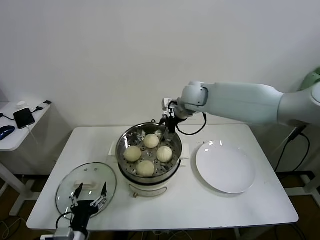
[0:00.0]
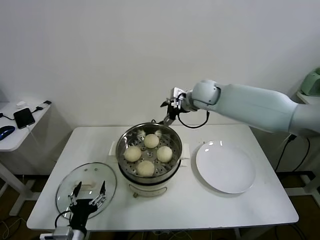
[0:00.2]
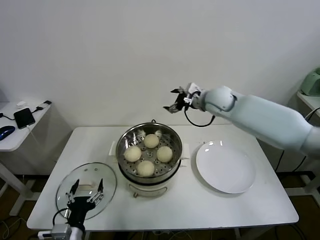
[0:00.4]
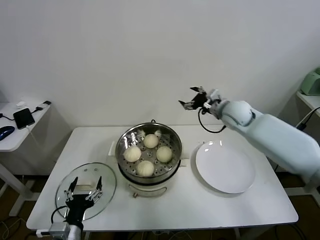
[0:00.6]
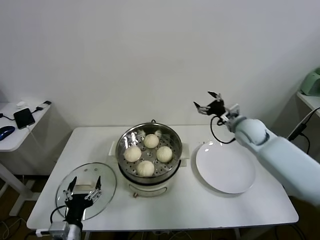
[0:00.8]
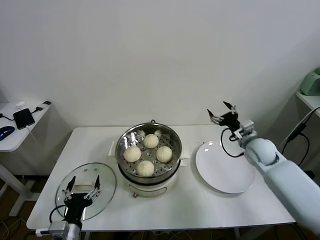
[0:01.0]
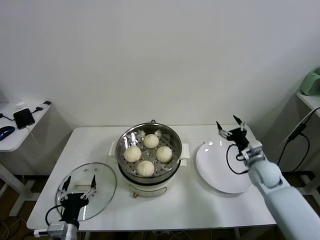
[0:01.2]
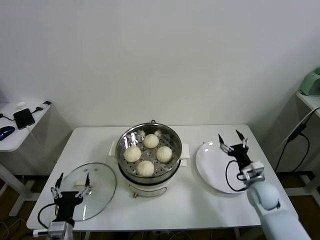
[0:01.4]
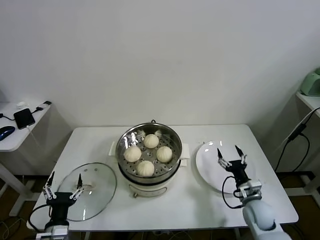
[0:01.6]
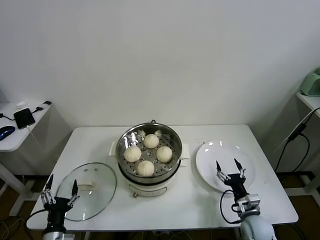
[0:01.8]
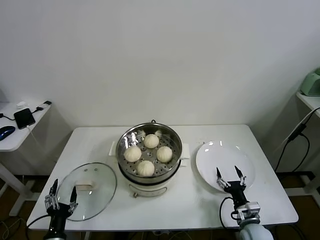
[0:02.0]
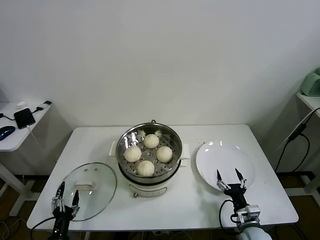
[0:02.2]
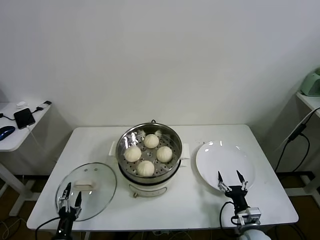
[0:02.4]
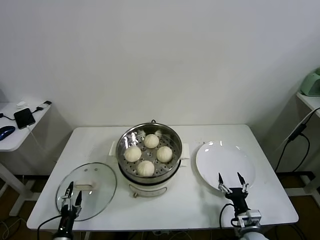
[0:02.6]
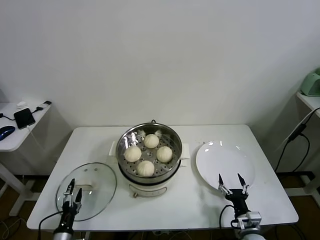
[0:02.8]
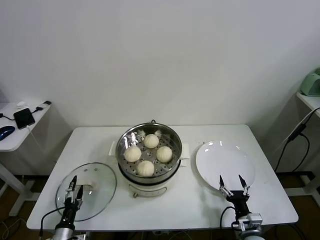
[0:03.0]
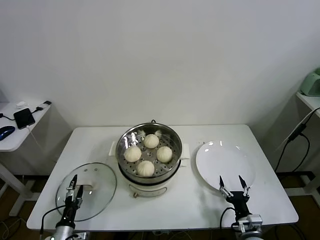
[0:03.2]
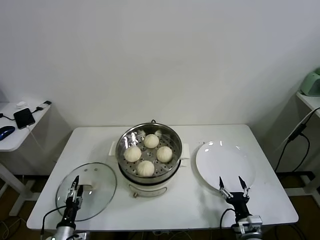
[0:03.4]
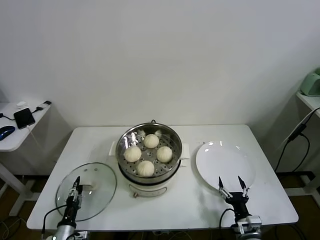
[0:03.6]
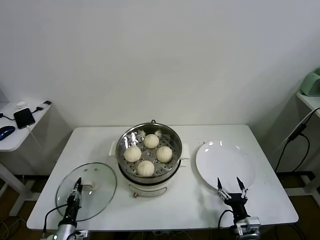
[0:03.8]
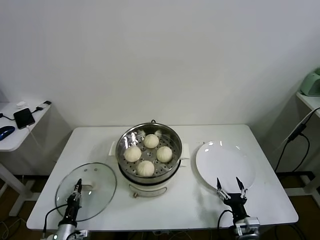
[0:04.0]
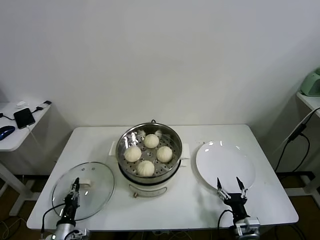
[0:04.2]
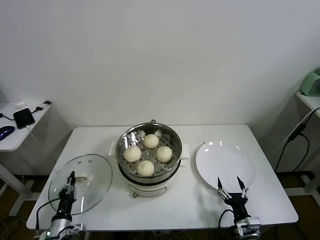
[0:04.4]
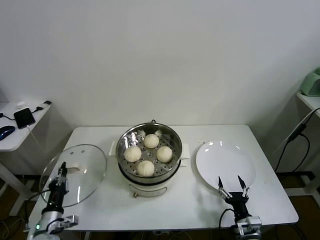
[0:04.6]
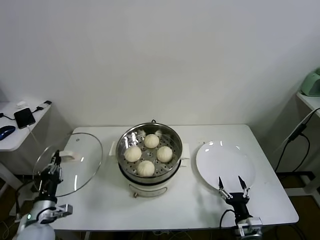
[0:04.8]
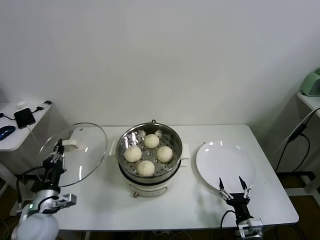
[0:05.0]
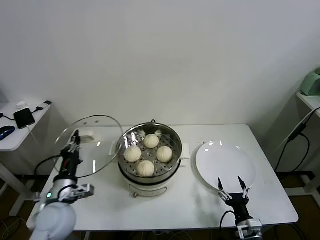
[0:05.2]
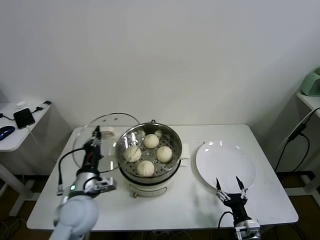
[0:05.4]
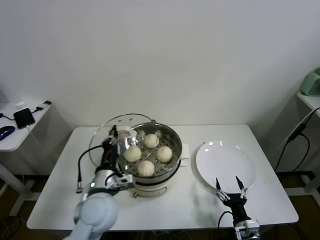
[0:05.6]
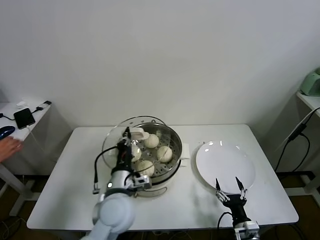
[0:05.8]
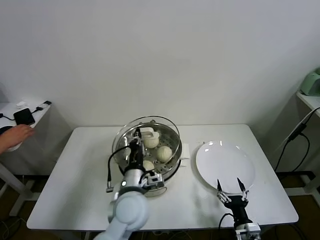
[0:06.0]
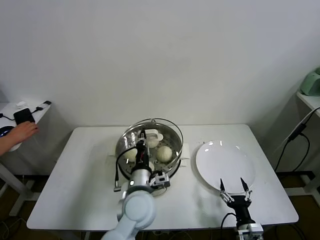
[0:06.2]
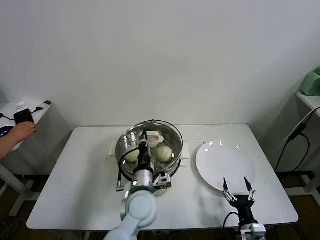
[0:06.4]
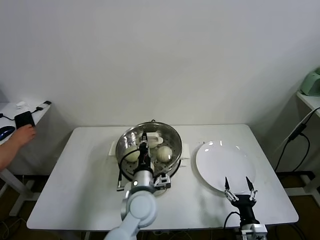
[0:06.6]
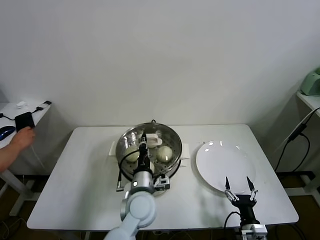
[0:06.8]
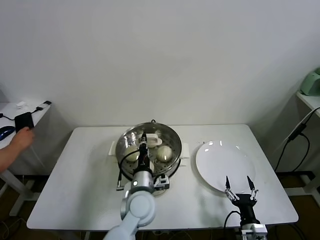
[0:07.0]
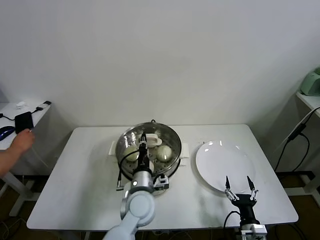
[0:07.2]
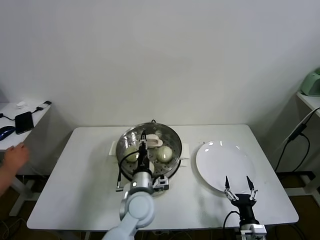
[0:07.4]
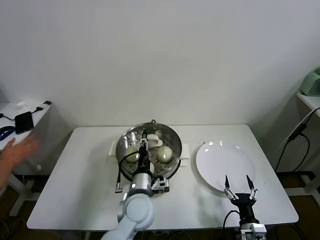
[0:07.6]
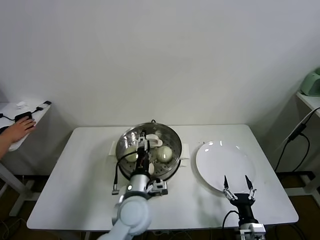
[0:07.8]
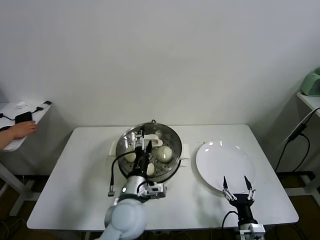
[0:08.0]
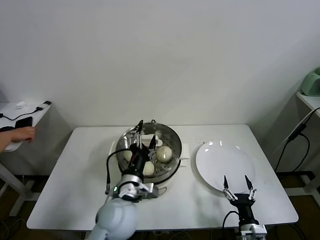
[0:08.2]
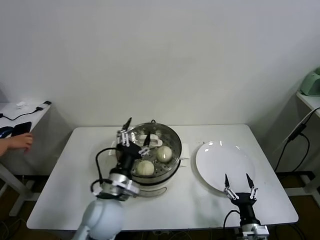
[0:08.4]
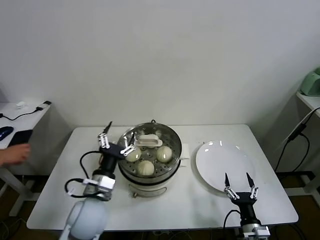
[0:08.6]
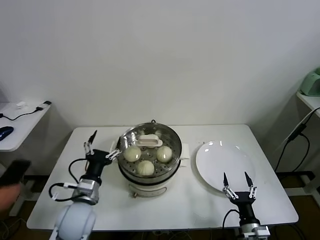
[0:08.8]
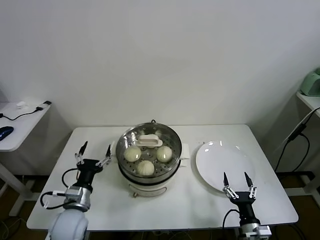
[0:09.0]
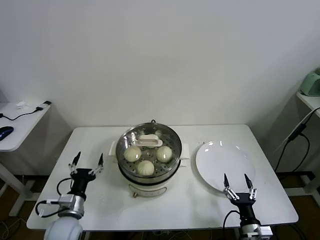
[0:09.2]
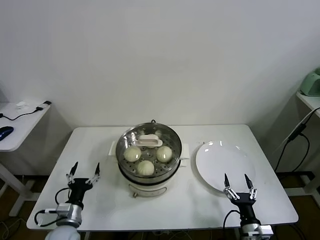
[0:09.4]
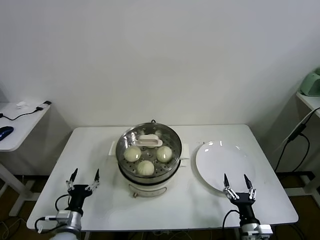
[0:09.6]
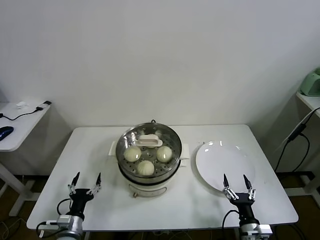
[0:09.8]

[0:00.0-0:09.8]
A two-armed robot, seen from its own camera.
Task of the whole recording: take steamed baozi put them in steamer.
Step, 0:00.0 to 0:03.8: Grasp the pot lid with left gripper.
Step, 0:04.0 to 0:07.4: Place the pot lid on the steamer with left gripper.
0:00.0 to 0:01.4: The right gripper heads downward, to the right and backward, covering some 40 cm.
0:01.4 to 0:02.8: The left gripper heads downward and to the left, covering roughly 15 cm, while the right gripper heads backward and downward, covering roughly 15 cm.
0:02.8 to 0:04.2: The left gripper closes.
0:04.2 to 0:05.6: The left gripper travels upward and to the right by roughly 30 cm.
0:05.6 to 0:07.0: The left gripper shifts about 10 cm to the right and downward.
0:07.0 to 0:08.4: The left gripper moves to the left and upward, approximately 10 cm, and opens.
0:08.4 to 0:09.8: The left gripper moves downward and to the left, some 25 cm.
